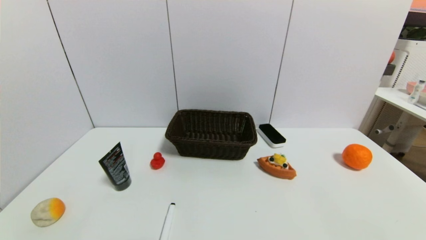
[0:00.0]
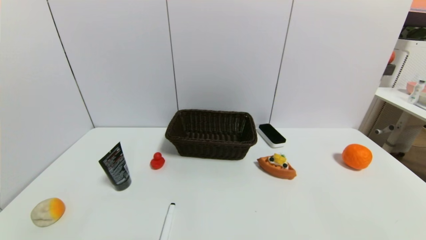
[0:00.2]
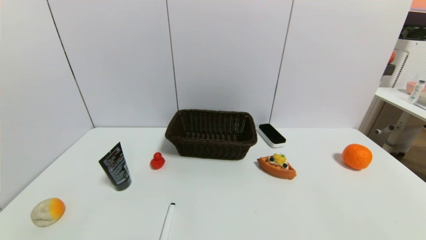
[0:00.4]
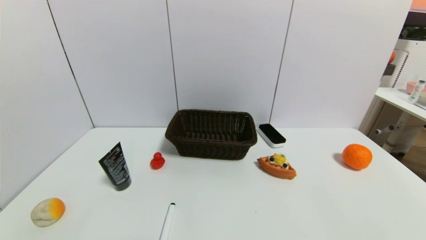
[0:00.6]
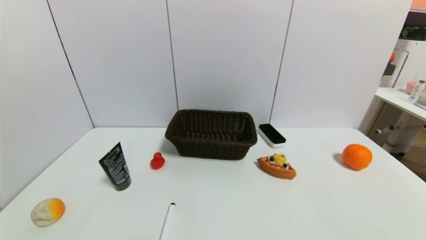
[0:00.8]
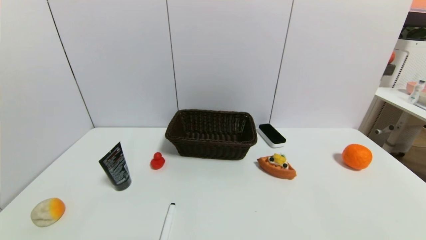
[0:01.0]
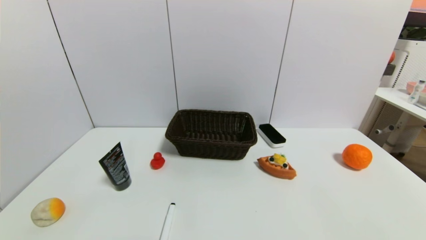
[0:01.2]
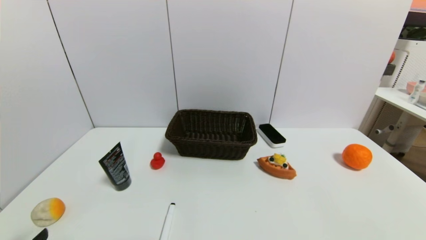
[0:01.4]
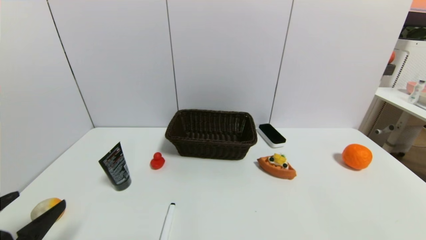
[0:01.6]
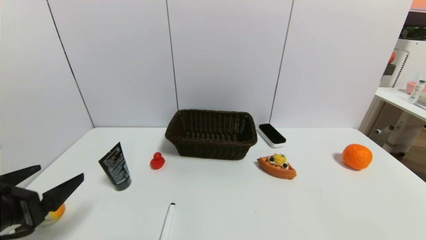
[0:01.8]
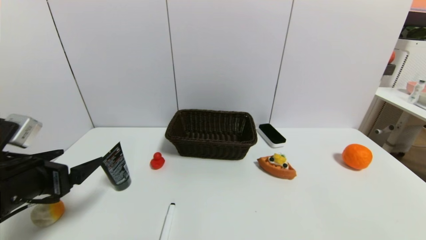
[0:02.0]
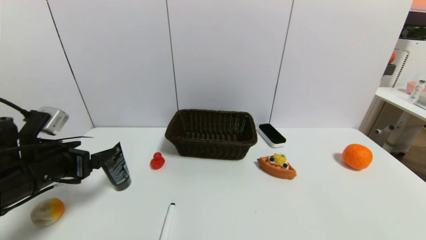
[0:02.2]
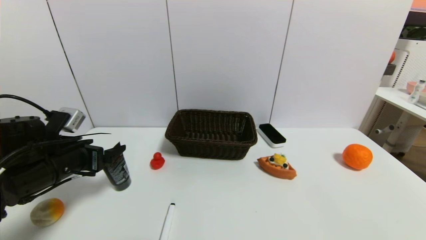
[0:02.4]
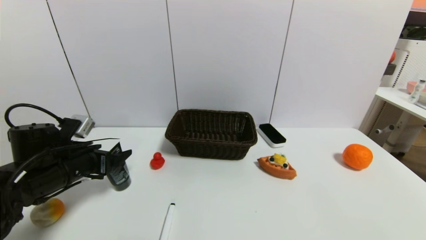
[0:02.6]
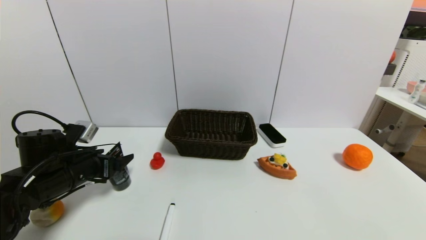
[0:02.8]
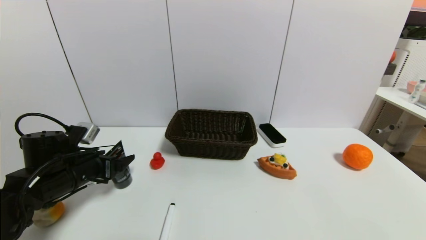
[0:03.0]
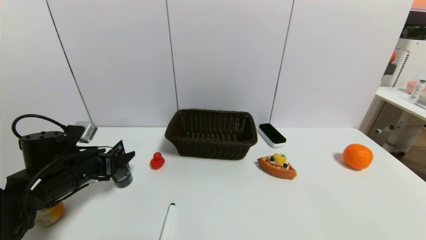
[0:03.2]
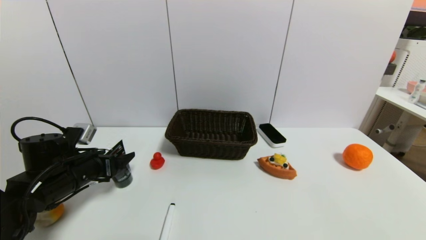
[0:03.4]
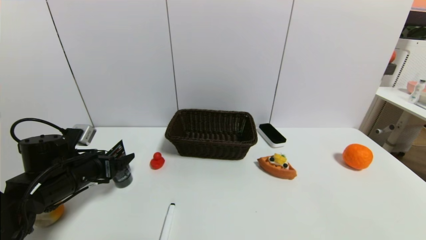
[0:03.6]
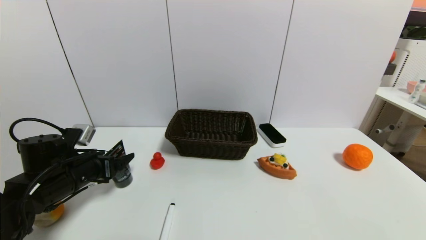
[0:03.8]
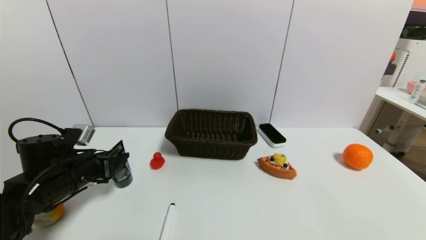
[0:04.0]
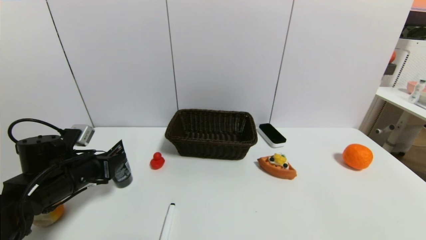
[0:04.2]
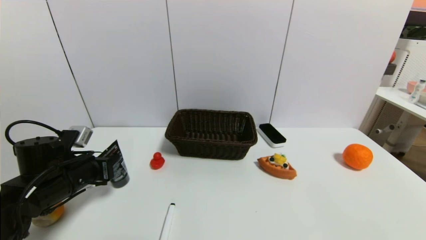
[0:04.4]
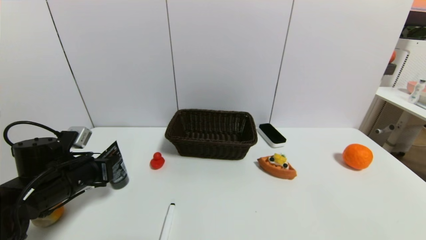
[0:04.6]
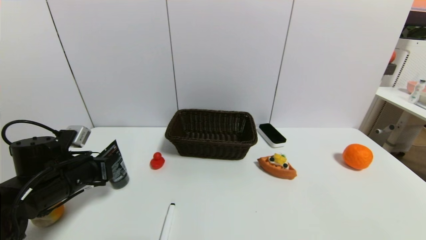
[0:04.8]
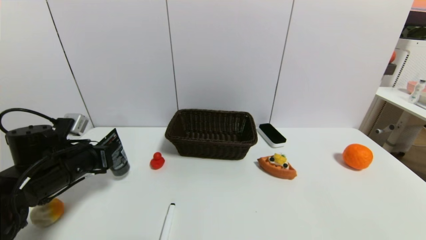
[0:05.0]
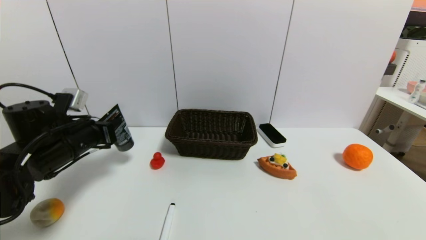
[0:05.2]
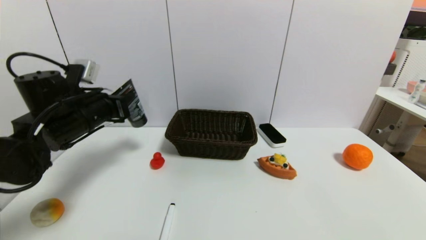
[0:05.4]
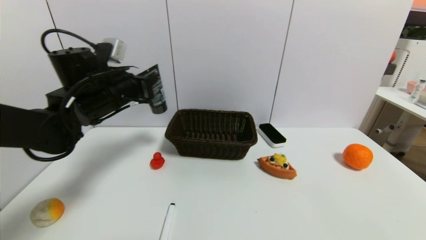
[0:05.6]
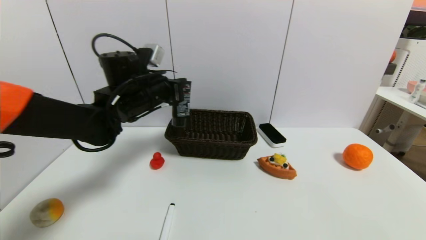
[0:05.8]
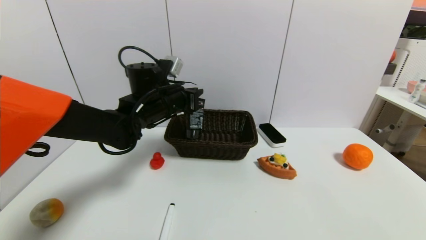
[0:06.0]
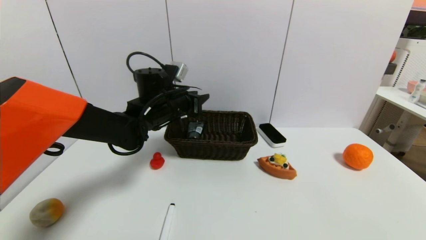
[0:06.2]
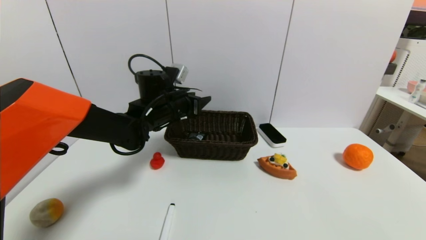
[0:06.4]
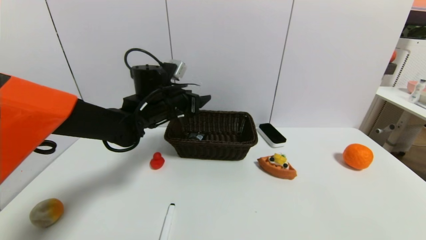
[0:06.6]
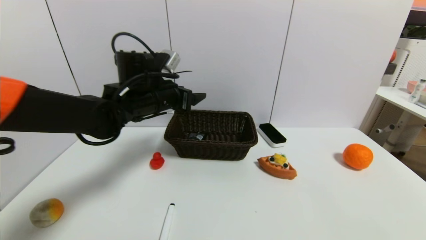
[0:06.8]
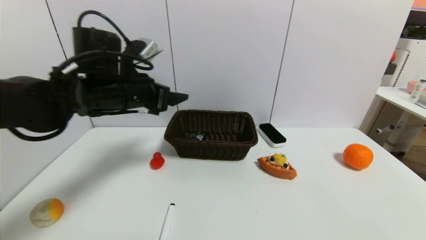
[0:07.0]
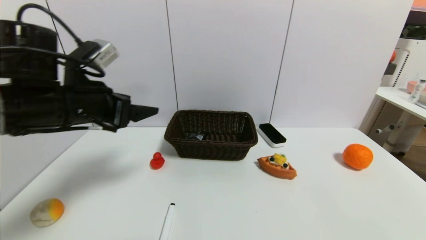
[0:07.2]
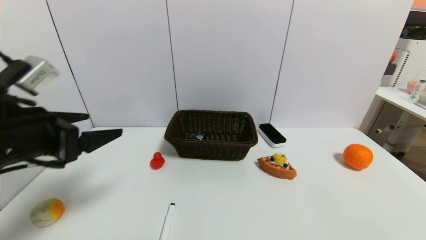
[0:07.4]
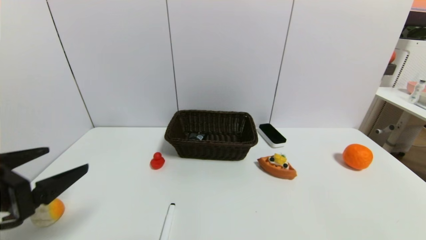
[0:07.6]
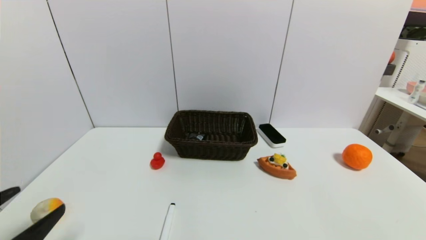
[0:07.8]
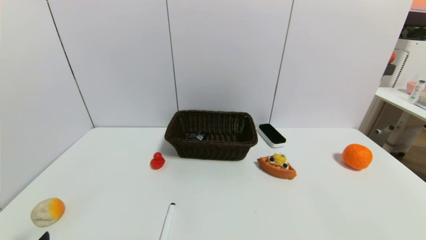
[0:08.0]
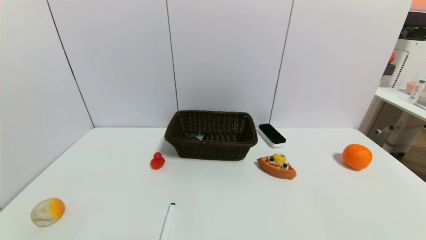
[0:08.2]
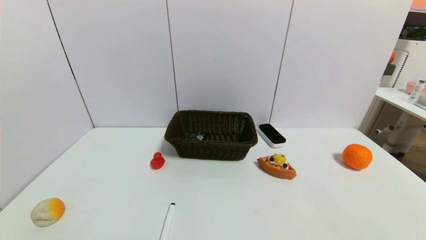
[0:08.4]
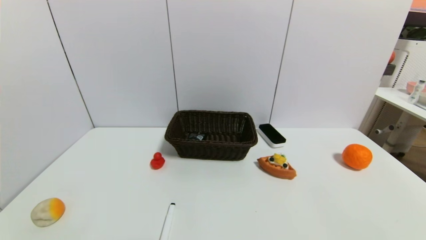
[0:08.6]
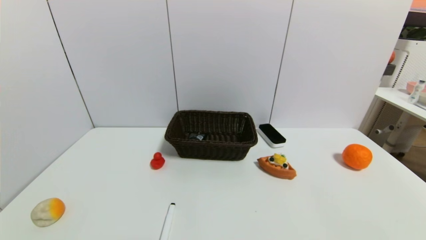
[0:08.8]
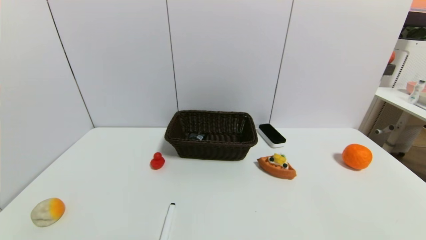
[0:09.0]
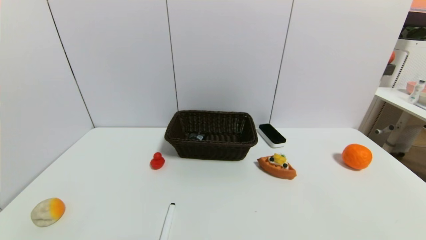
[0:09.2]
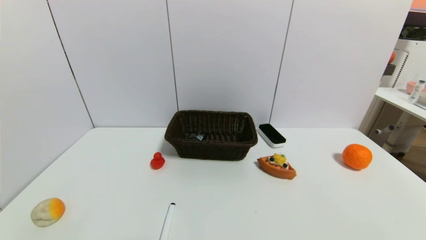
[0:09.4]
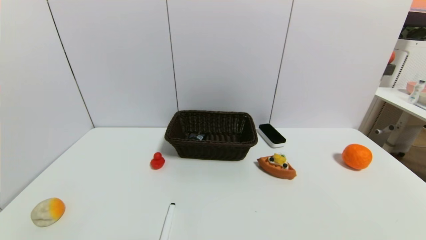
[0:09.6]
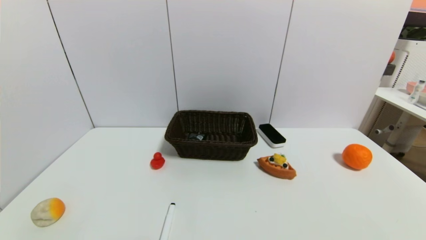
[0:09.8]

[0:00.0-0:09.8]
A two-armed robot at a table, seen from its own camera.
Task of the whole recording: use a gripper to pick the target object and place on the brown basket.
Step, 0:00.0 to 0:04.4: Grasp the soft facial cleanser with the left gripper.
Step, 0:04.6 to 0:06.4: Place the soft facial cleanser into the basket with the left gripper.
0:01.4 to 0:02.8: The left gripper heads forward, covering some 25 cm.
0:02.8 to 0:04.2: The left gripper closes up.
0:04.2 to 0:05.6: The left gripper heads upward, forward and to the right, covering approximately 20 cm.
0:05.6 to 0:07.0: The left gripper opens.
0:07.0 to 0:08.4: The left gripper moves backward and downward, about 35 cm.

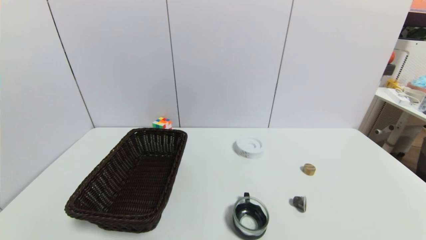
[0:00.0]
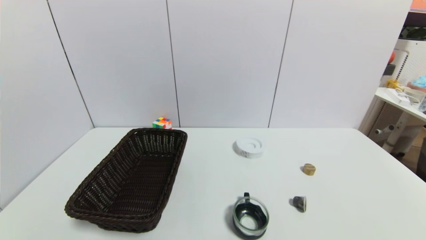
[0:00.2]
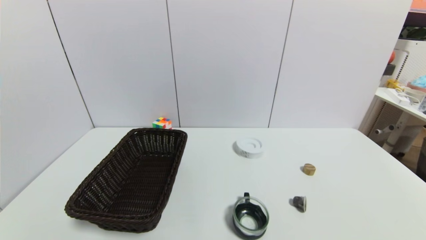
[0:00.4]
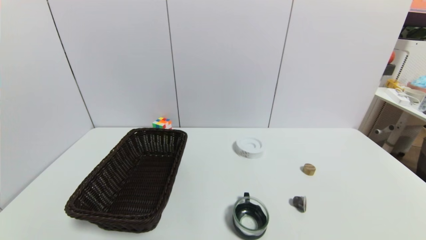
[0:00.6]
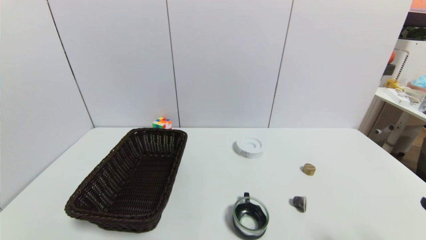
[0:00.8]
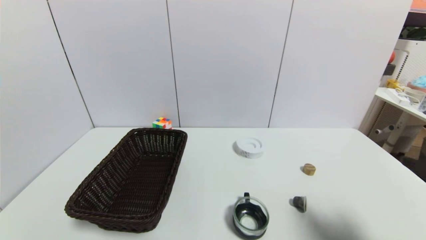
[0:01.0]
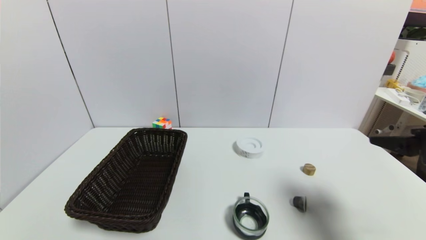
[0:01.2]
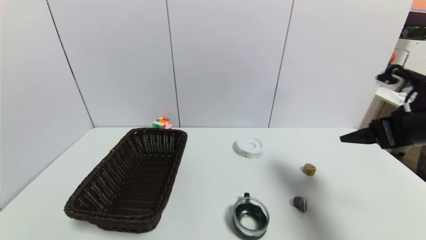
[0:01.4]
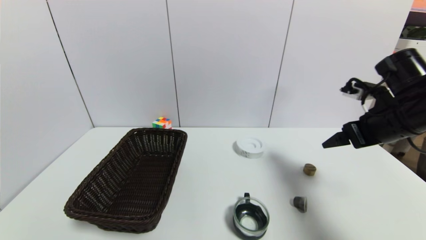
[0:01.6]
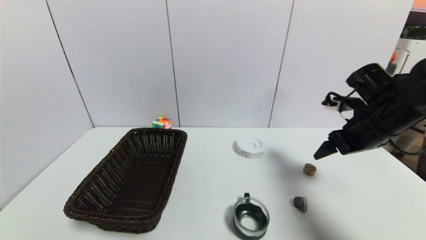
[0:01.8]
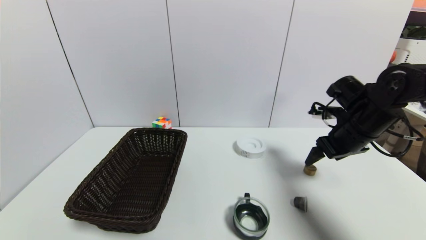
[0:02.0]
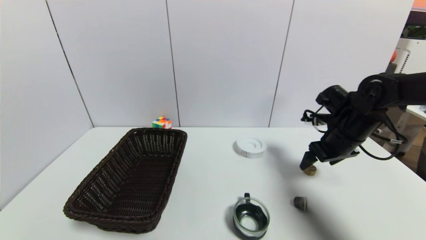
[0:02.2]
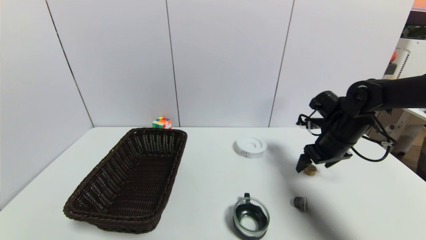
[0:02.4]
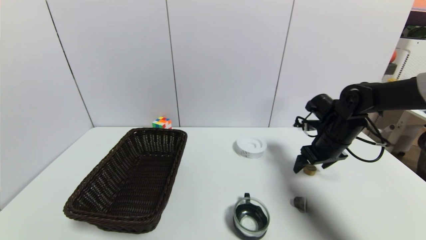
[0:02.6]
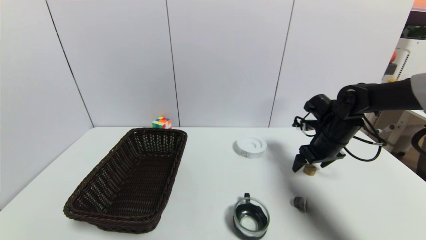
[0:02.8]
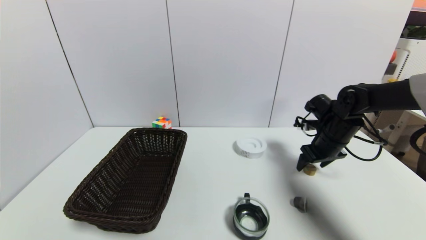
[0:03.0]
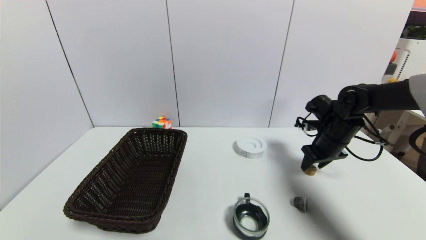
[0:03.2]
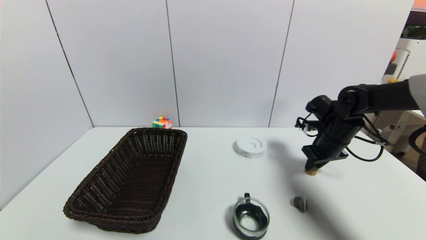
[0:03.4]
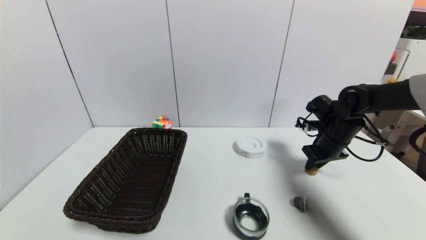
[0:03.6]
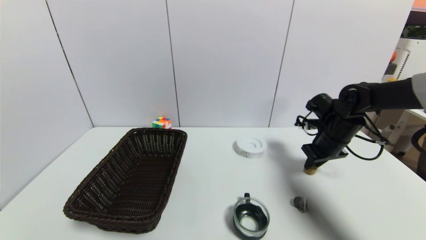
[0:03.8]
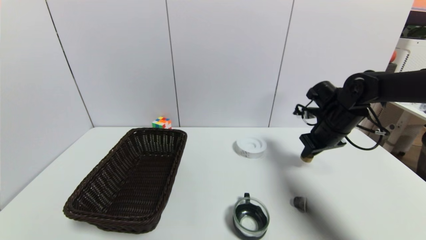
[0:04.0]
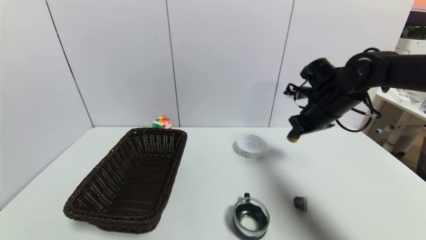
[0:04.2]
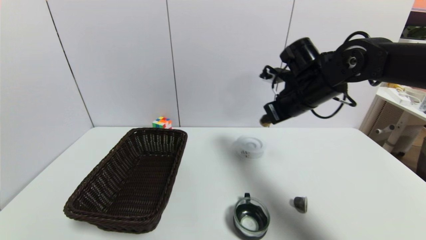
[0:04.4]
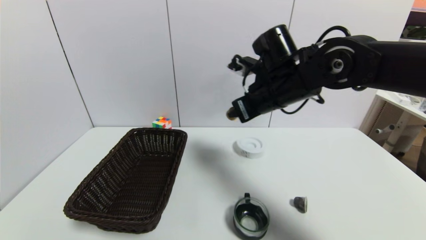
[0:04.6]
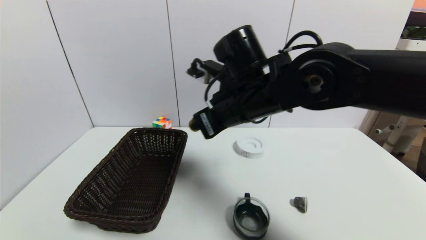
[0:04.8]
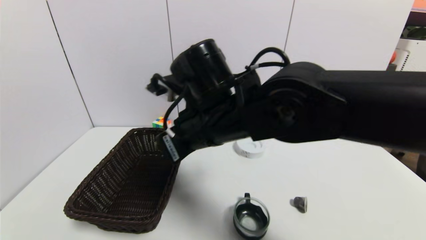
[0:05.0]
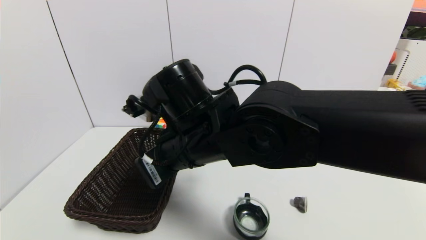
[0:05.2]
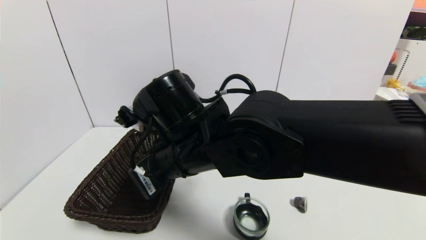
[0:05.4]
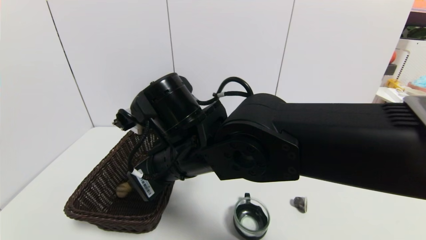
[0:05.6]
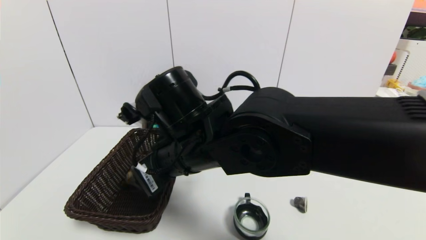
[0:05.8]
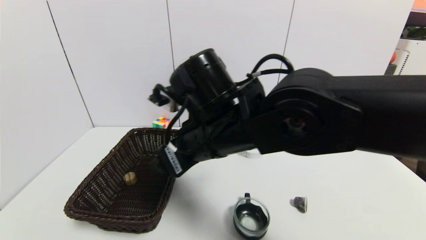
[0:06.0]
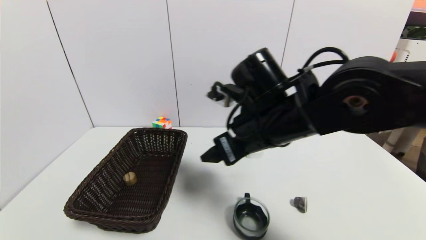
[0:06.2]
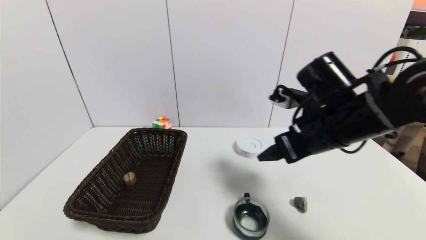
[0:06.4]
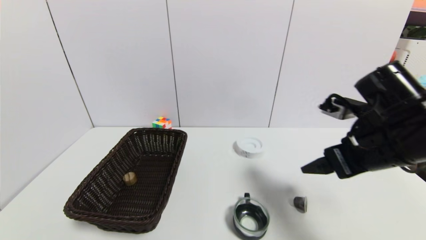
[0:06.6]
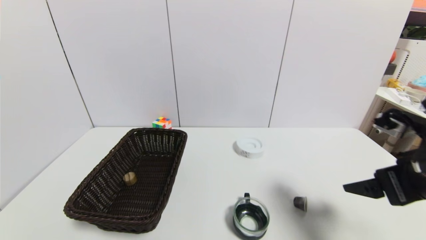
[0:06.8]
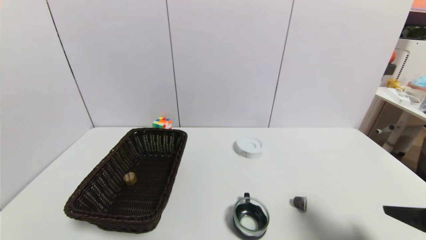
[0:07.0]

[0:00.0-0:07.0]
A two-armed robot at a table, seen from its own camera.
Task of the whole recording: use a gripper to pick the target object and place on the brown basket.
Step, 0:00.0 to 0:03.6: Grasp the round wooden block with the right gripper.
Step, 0:03.8 to 0:06.0: Place the round wooden block into the basket with the right gripper.
0:00.0 to 0:01.4: The right gripper goes approximately 30 cm forward and upward.
0:01.4 to 0:02.8: The right gripper is displaced forward and downward by about 20 cm.
0:02.8 to 0:04.2: The right gripper heads upward, covering some 10 cm, and closes its fingers.
0:04.2 to 0:05.6: The right gripper moves to the left and backward, roughly 30 cm, and opens up.
0:05.6 to 0:07.0: The right gripper moves to the right, about 35 cm, and opens its fingers.
